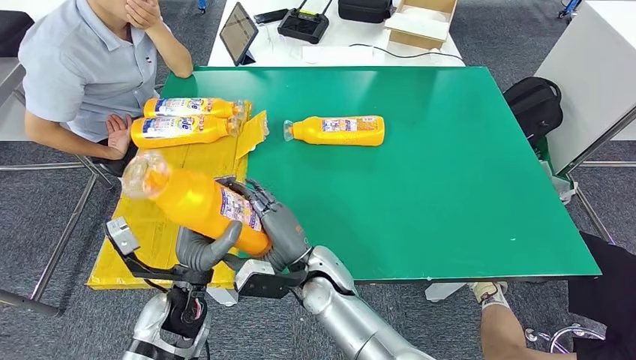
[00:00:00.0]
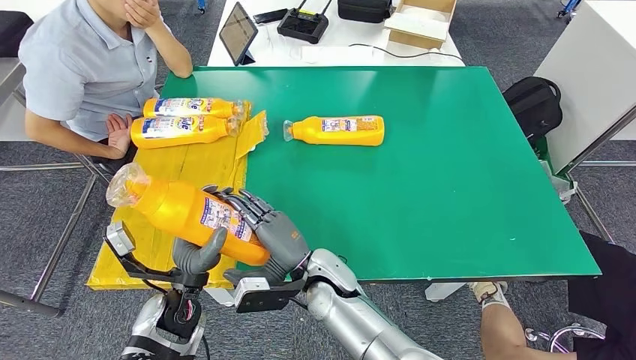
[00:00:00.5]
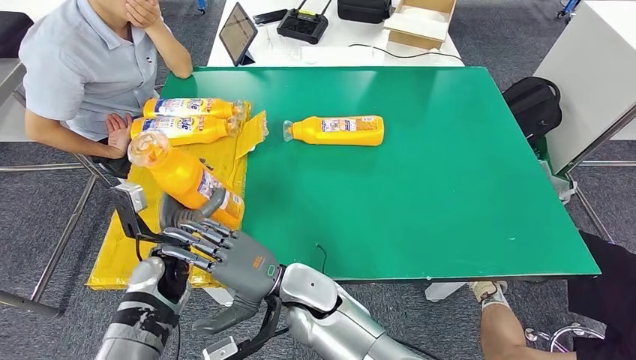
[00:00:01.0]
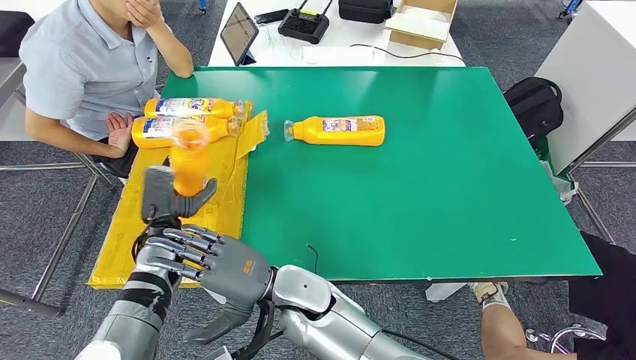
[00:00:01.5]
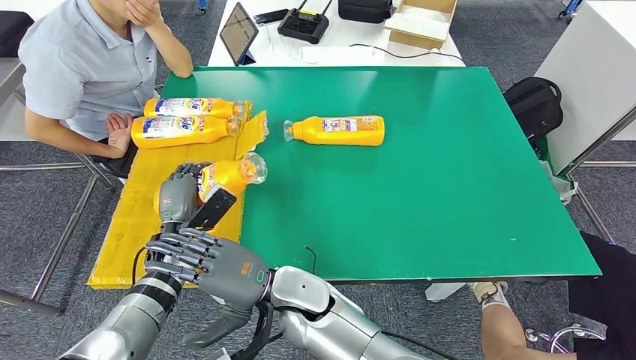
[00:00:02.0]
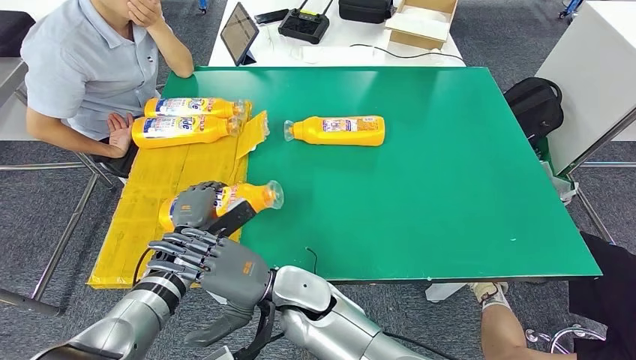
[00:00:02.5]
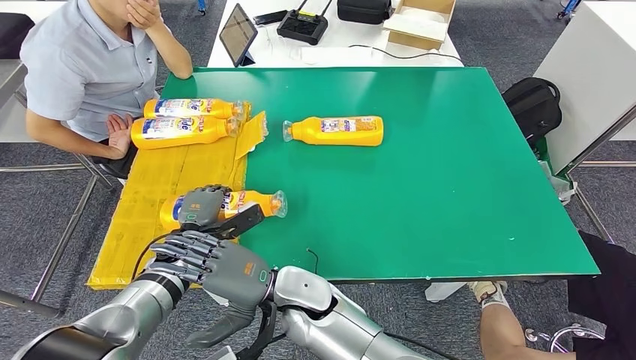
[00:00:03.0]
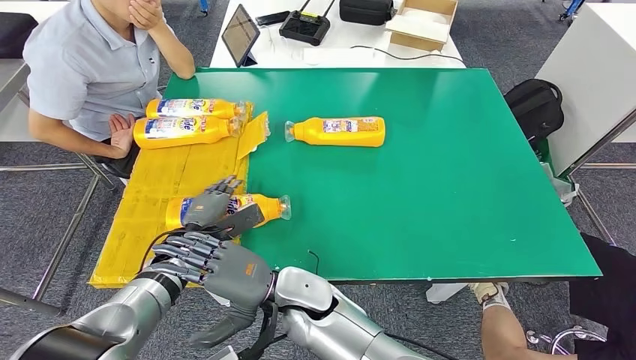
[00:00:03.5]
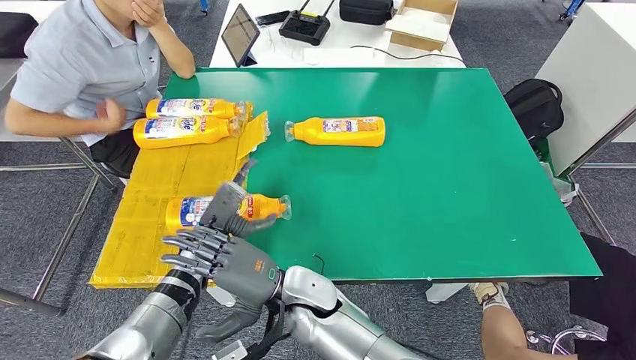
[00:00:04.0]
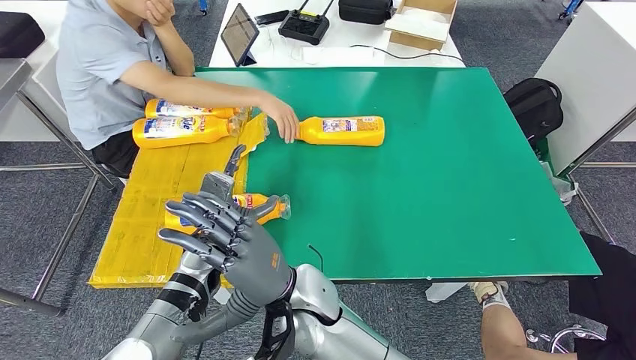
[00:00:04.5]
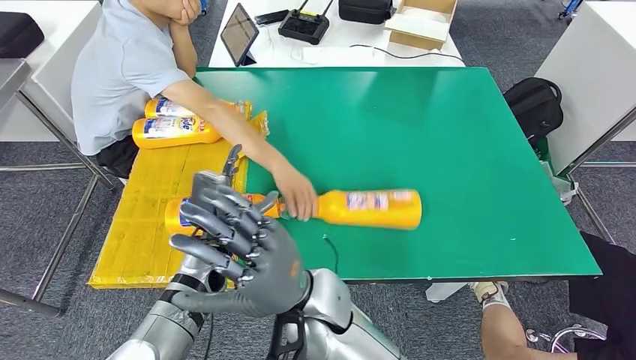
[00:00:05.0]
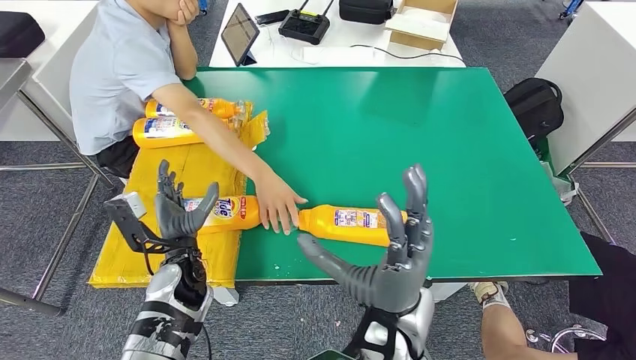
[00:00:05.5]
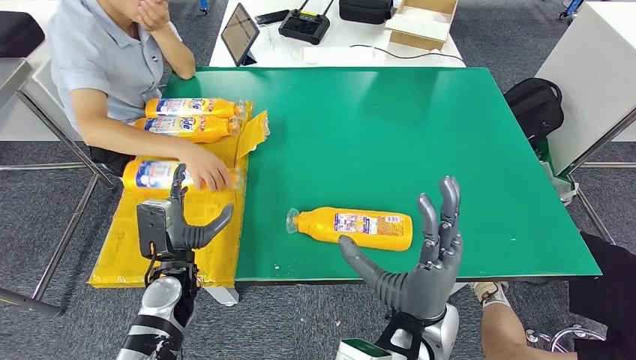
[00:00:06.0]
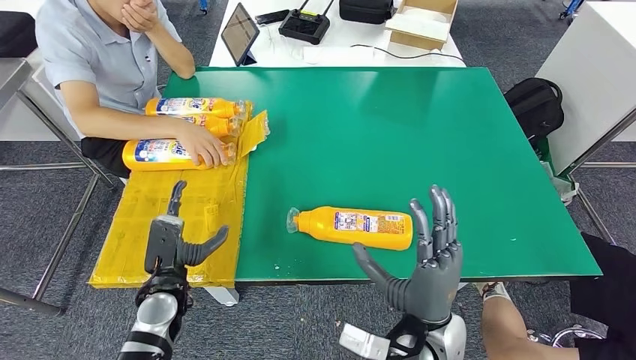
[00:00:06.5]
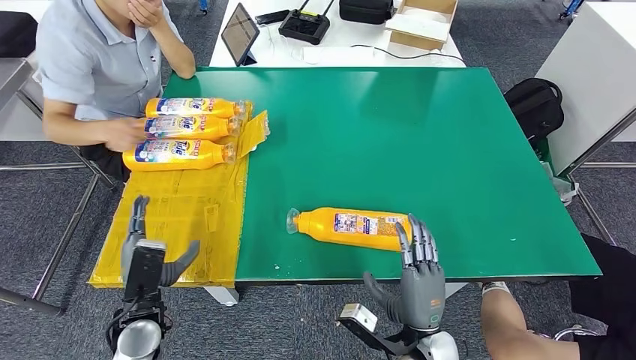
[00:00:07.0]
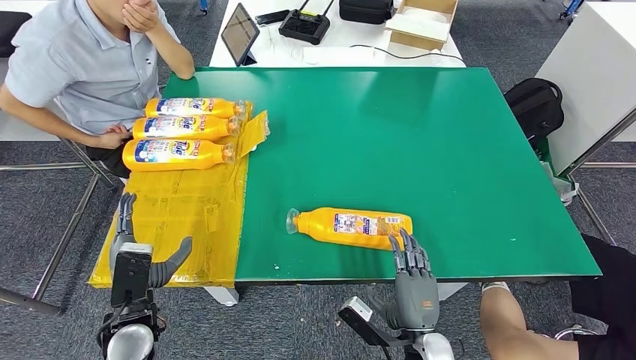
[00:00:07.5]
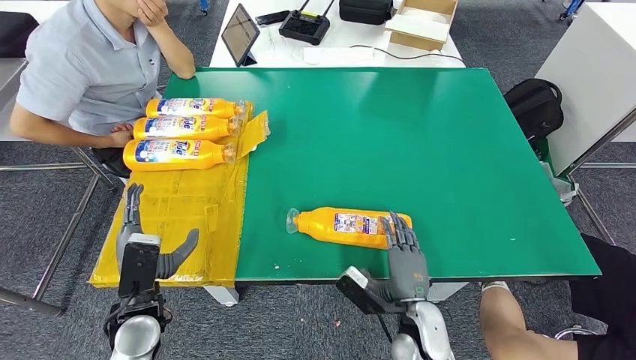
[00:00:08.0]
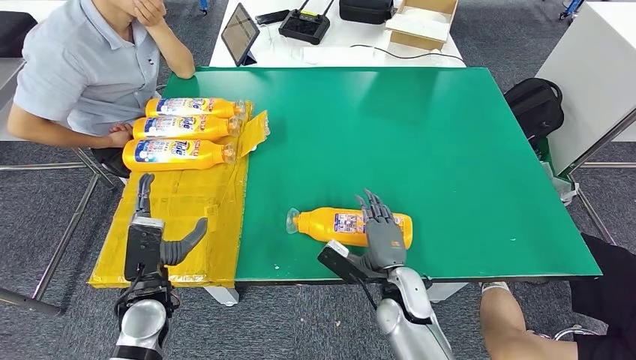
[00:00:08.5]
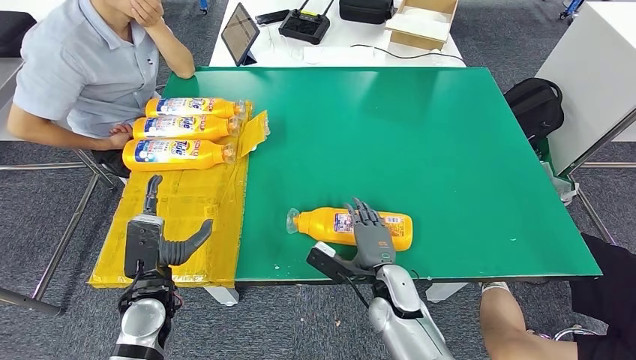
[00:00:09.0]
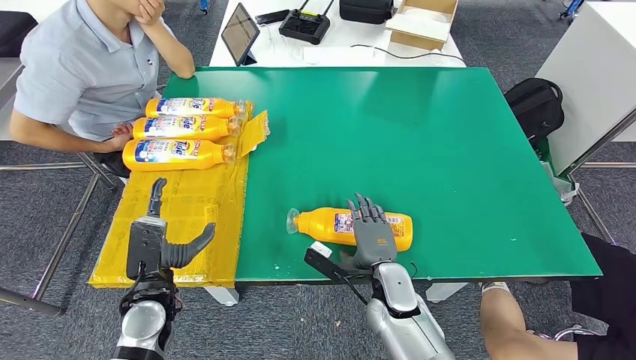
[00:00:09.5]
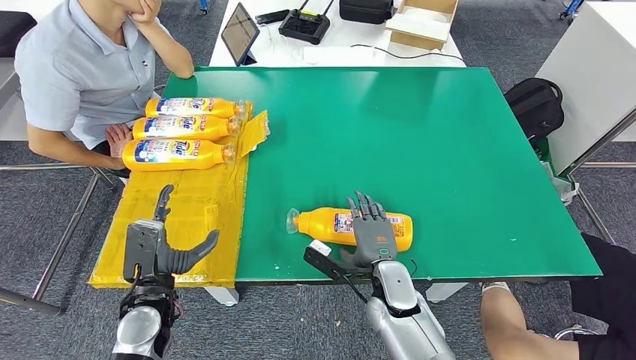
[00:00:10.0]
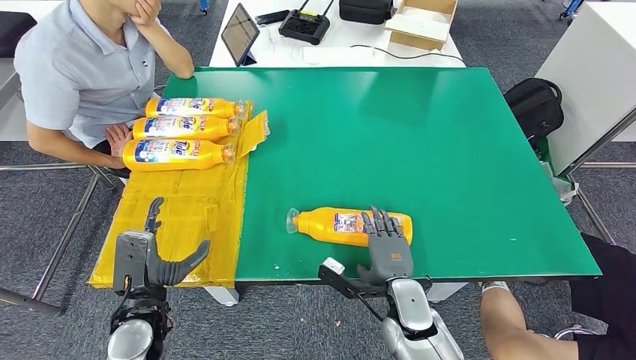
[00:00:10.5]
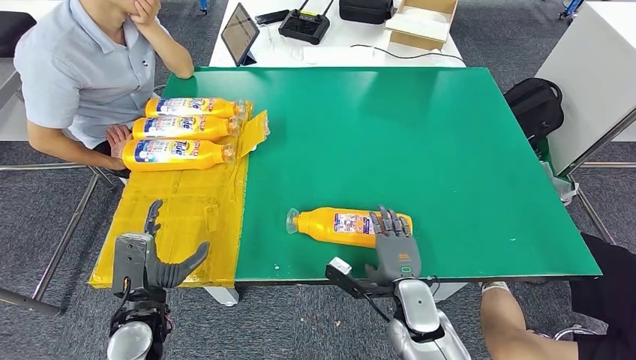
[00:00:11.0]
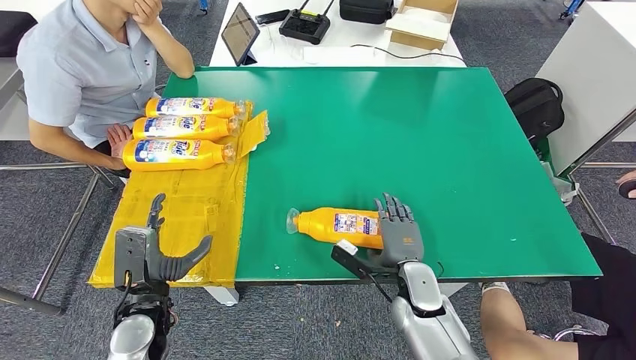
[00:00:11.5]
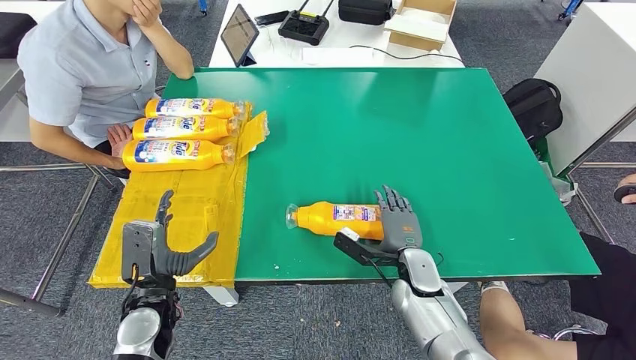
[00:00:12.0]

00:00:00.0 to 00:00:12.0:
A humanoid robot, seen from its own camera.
Step, 00:00:00.0 to 00:00:03.0: Flip the bottle to face forward.
00:00:00.0 to 00:00:02.0: The right hand shifts by roughly 5 cm. The left hand moves forward and to the left, approximately 15 cm.
00:00:02.0 to 00:00:04.0: The left hand travels to the right by approximately 5 cm.
00:00:06.0 to 00:00:08.0: The right hand goes roughly 15 cm downward, while the left hand shifts roughly 5 cm backward.
00:00:08.0 to 00:00:10.0: The right hand is displaced forward by roughly 5 cm.
00:00:10.0 to 00:00:12.0: The right hand travels to the right by about 5 cm.

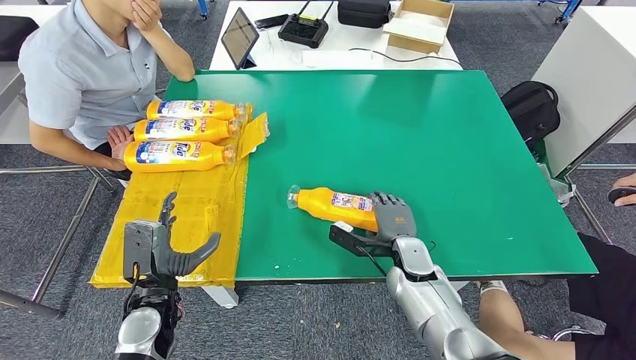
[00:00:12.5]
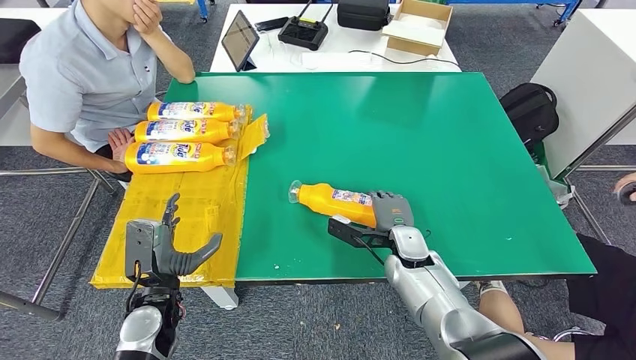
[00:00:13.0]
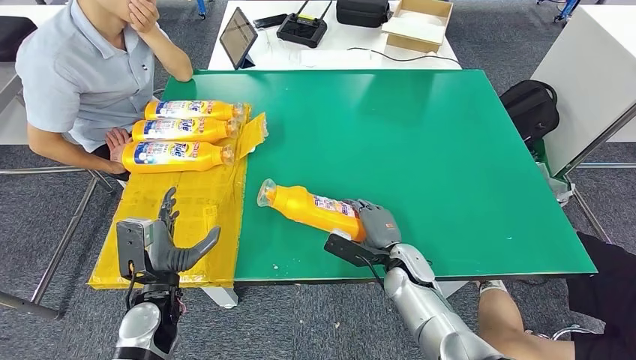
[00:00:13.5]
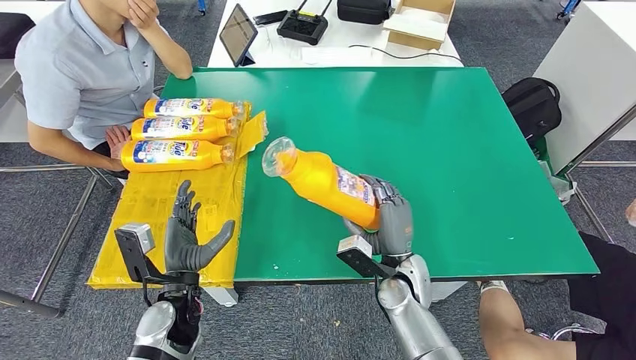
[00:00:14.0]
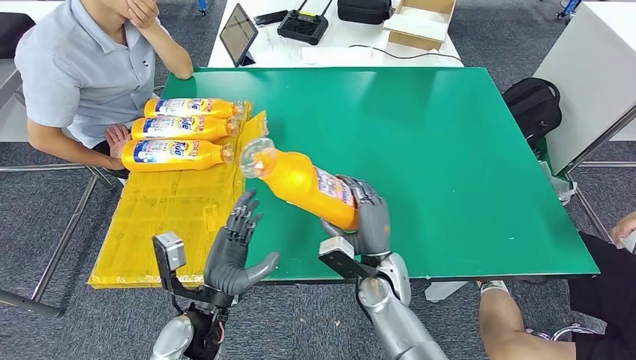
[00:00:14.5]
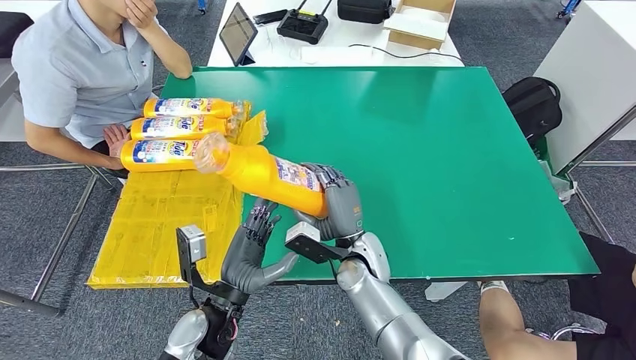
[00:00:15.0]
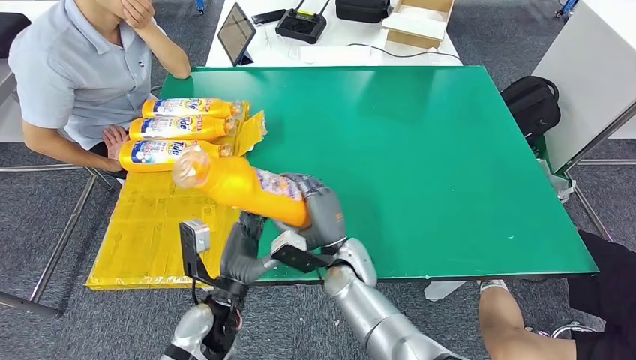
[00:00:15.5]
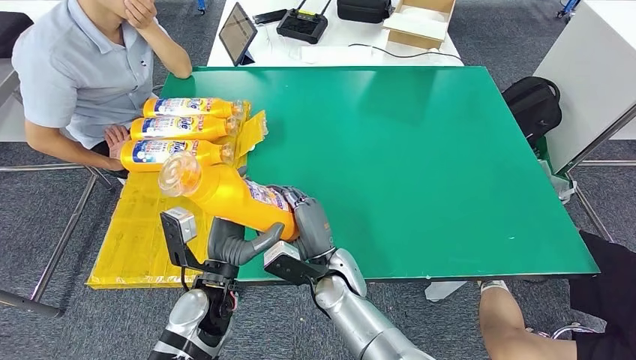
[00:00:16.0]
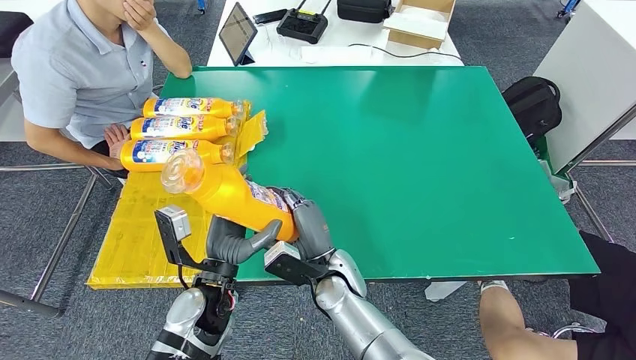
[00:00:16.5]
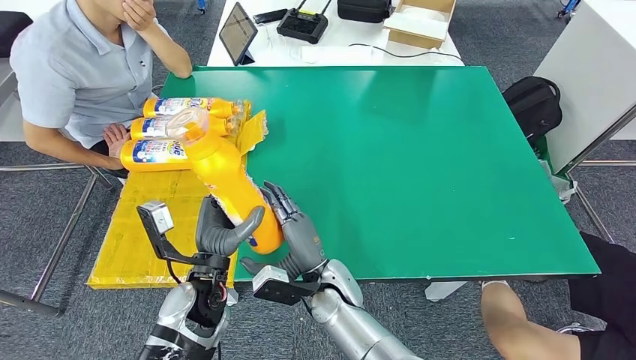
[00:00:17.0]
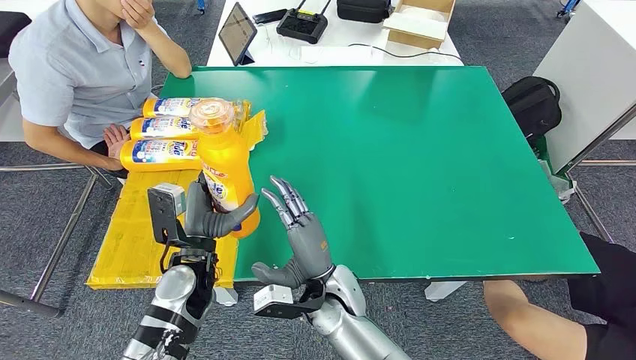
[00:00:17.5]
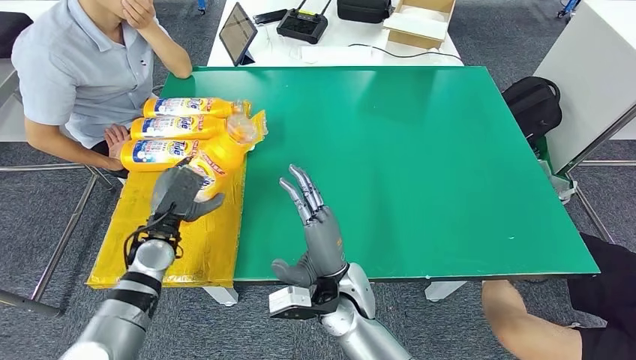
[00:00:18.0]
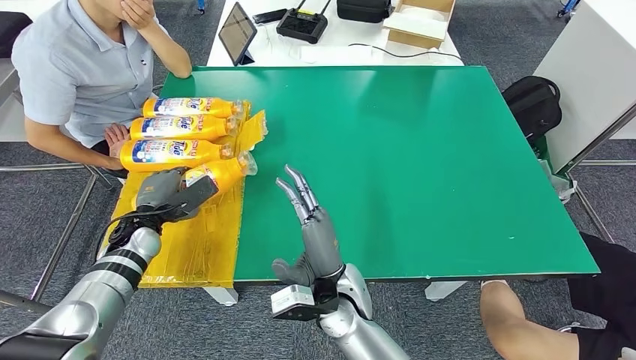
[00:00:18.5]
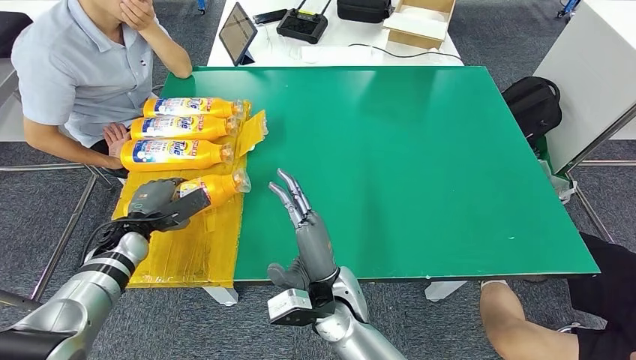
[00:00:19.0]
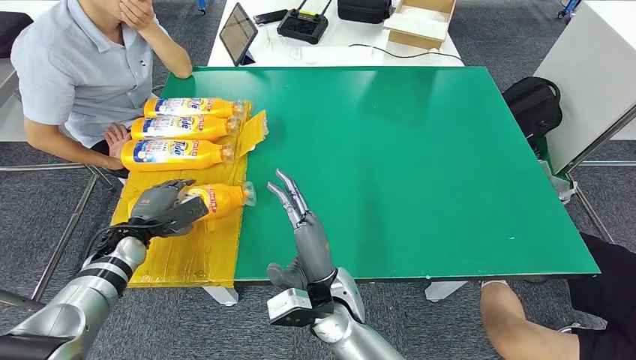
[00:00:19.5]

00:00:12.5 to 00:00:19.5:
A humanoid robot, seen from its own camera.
Step, 00:00:12.5 to 00:00:15.0: Pick up the bottle from the table.
Step, 00:00:15.5 to 00:00:19.5: Flip the bottle to face forward.
00:00:14.5 to 00:00:16.0: The right hand shifts approximately 10 cm to the left.
00:00:16.0 to 00:00:17.5: The left hand ends up roughly 5 cm from where it was.
00:00:17.5 to 00:00:19.5: The left hand travels to the left and forward by approximately 20 cm.
